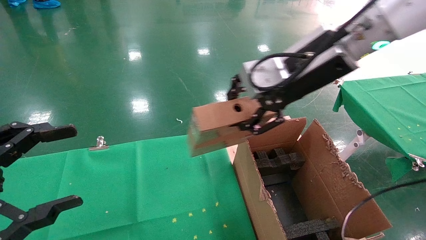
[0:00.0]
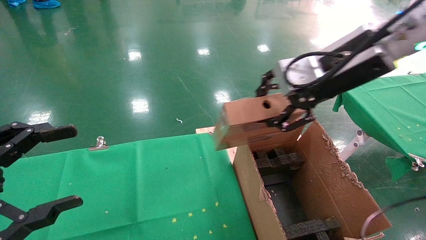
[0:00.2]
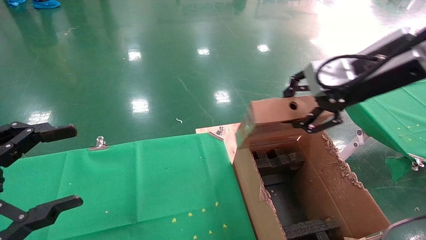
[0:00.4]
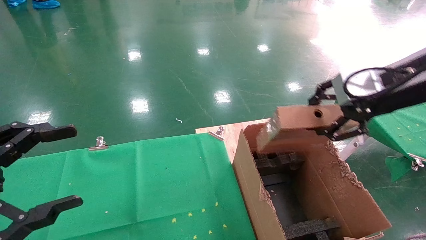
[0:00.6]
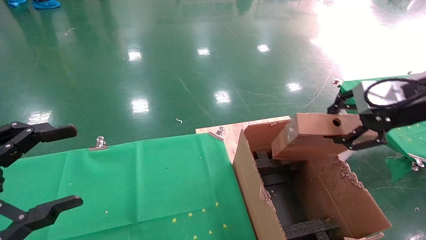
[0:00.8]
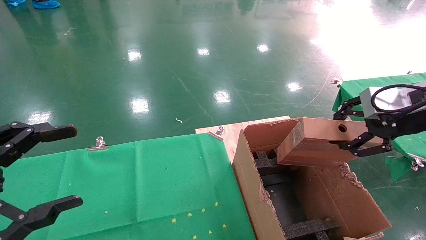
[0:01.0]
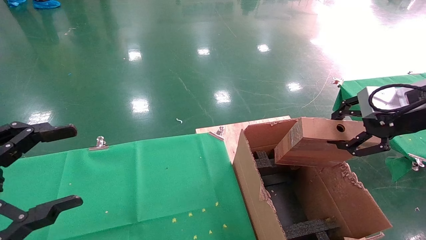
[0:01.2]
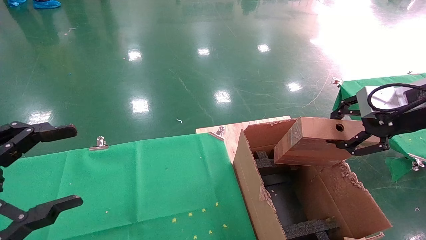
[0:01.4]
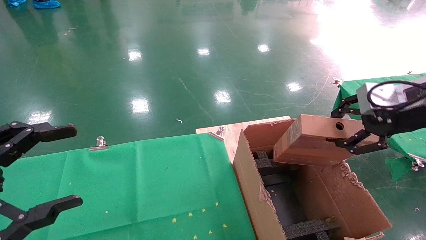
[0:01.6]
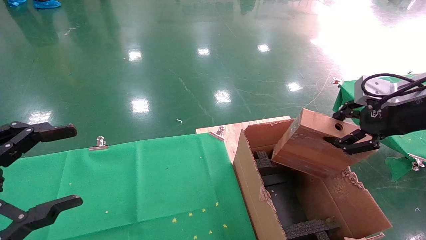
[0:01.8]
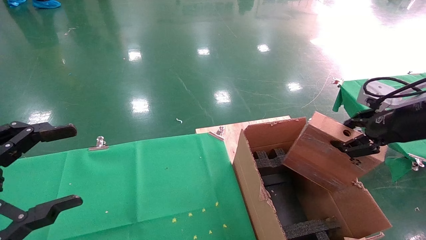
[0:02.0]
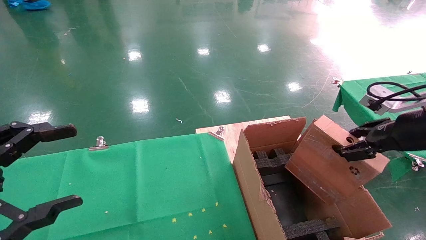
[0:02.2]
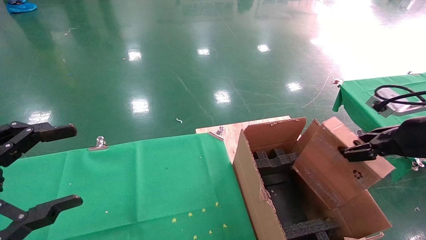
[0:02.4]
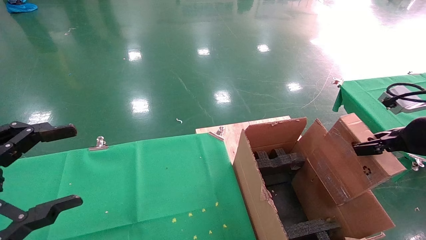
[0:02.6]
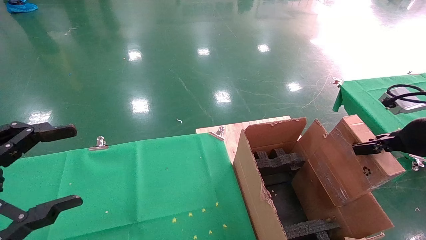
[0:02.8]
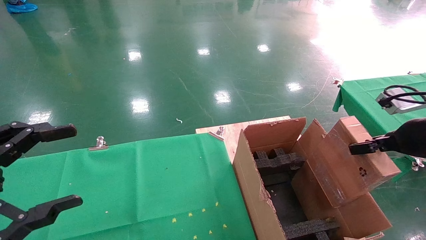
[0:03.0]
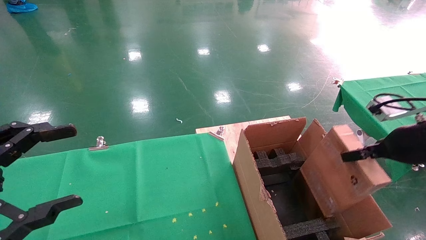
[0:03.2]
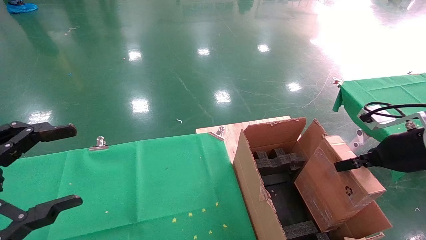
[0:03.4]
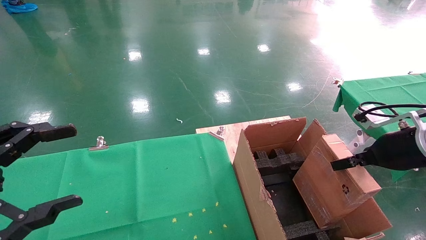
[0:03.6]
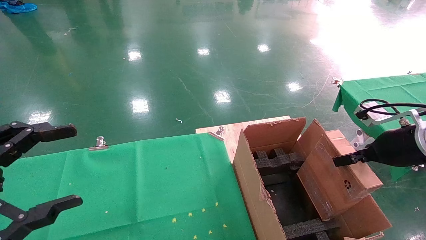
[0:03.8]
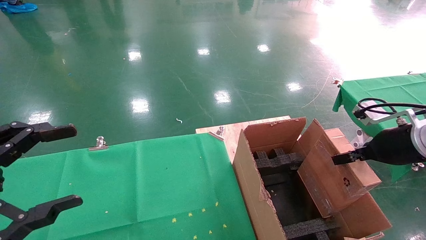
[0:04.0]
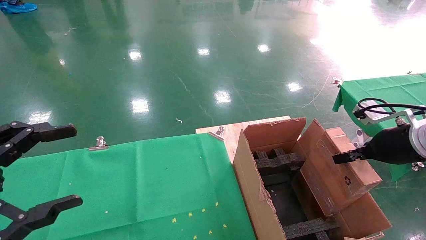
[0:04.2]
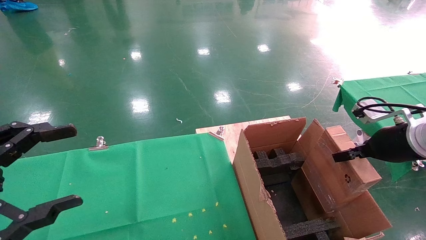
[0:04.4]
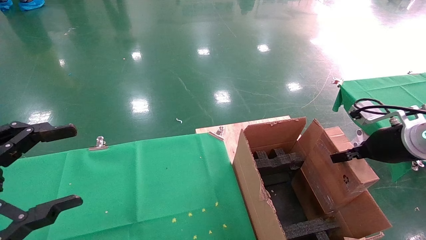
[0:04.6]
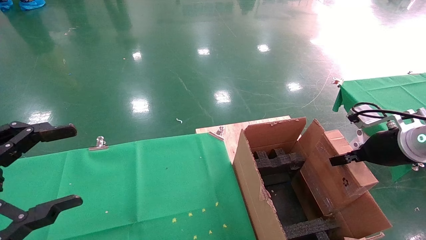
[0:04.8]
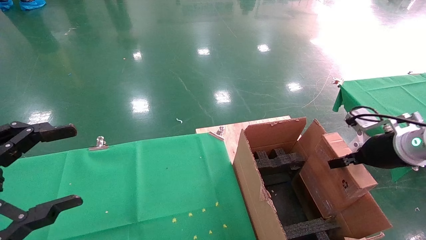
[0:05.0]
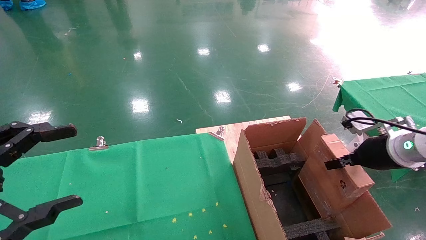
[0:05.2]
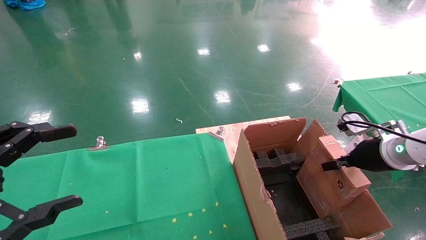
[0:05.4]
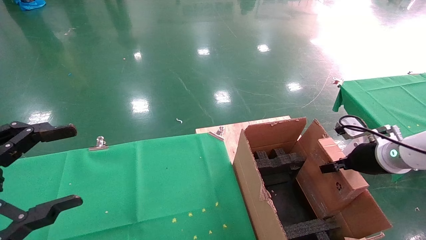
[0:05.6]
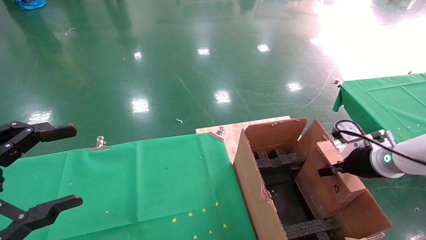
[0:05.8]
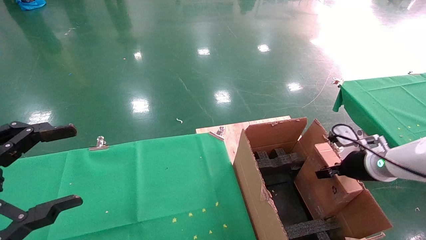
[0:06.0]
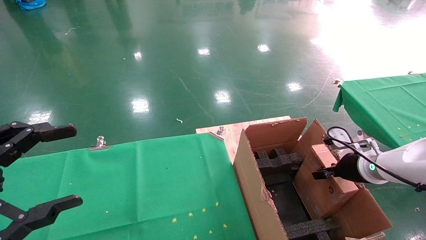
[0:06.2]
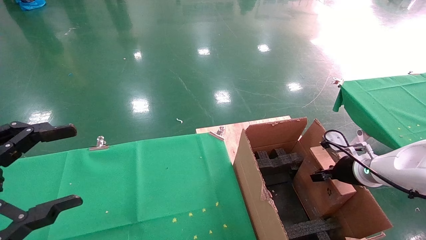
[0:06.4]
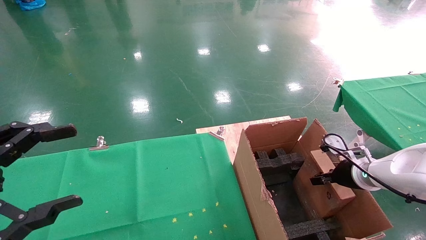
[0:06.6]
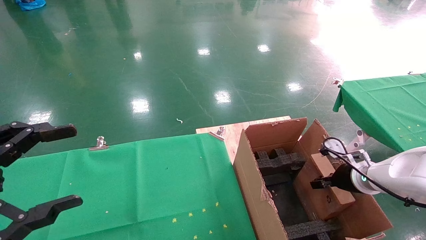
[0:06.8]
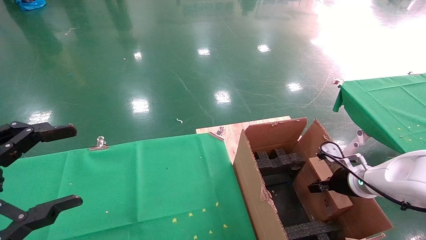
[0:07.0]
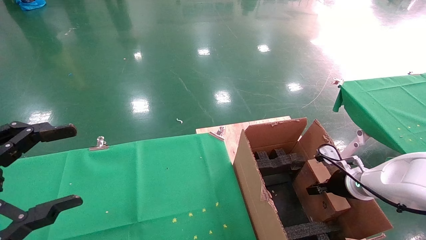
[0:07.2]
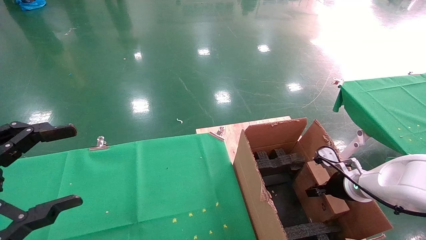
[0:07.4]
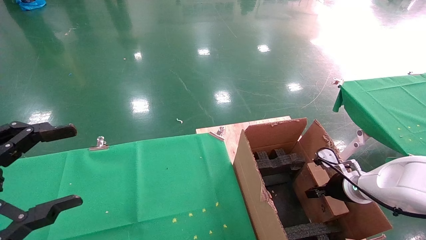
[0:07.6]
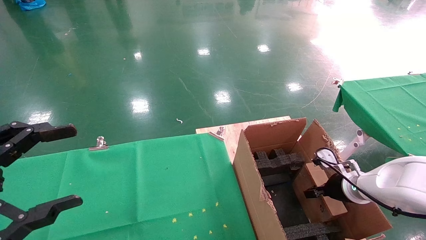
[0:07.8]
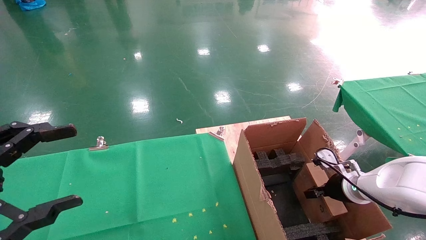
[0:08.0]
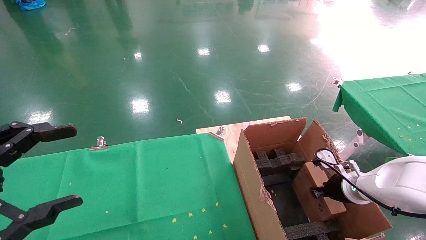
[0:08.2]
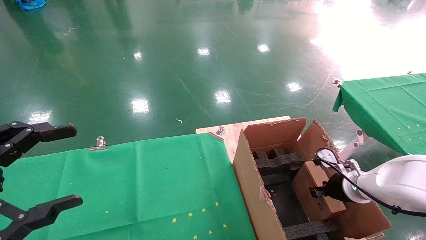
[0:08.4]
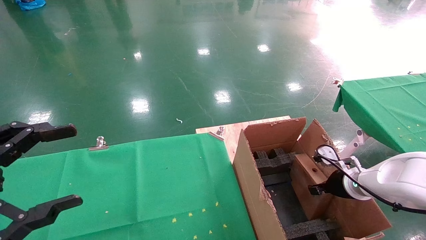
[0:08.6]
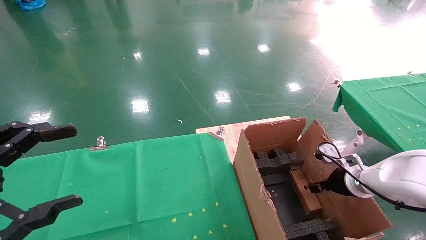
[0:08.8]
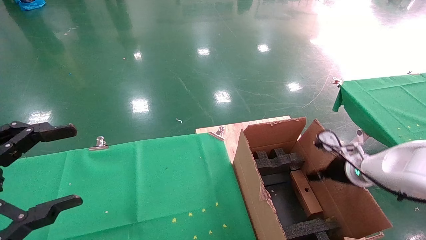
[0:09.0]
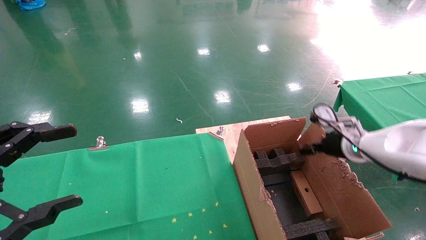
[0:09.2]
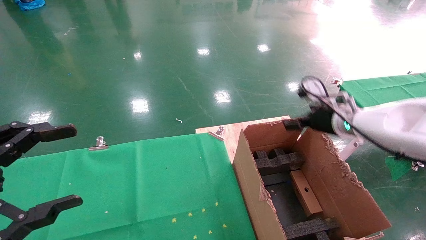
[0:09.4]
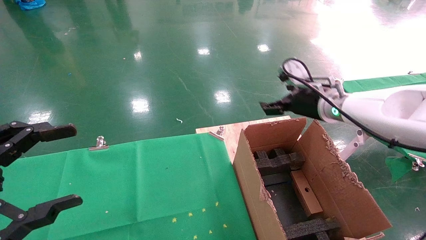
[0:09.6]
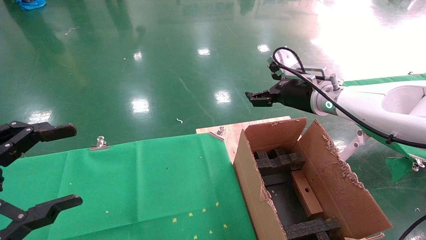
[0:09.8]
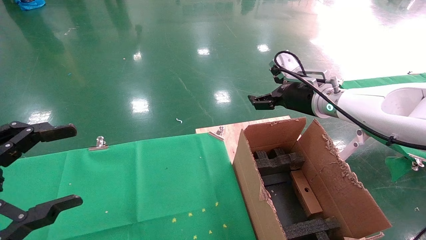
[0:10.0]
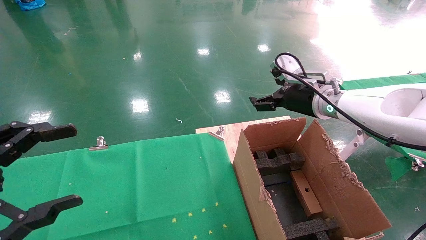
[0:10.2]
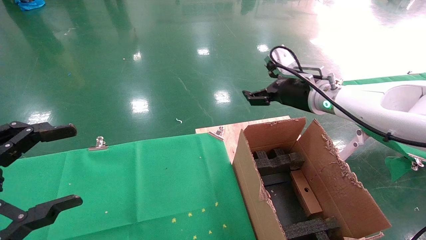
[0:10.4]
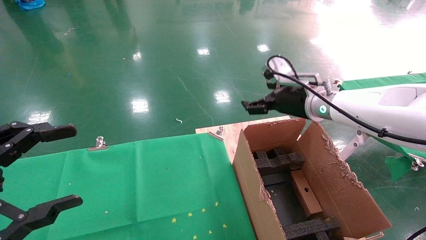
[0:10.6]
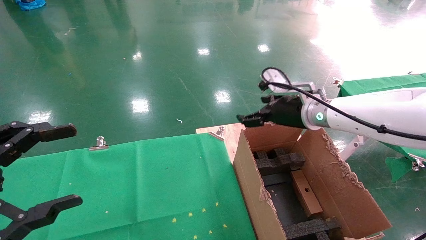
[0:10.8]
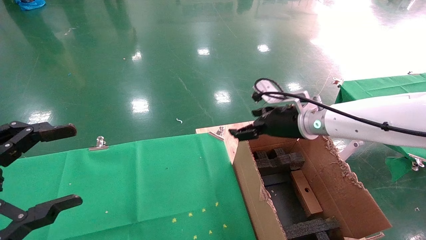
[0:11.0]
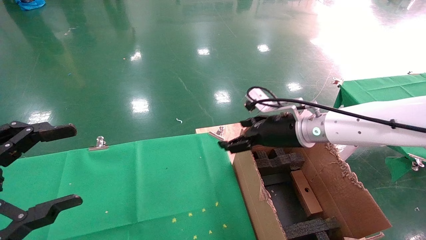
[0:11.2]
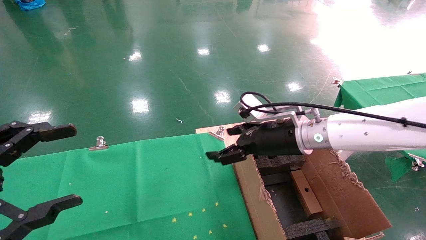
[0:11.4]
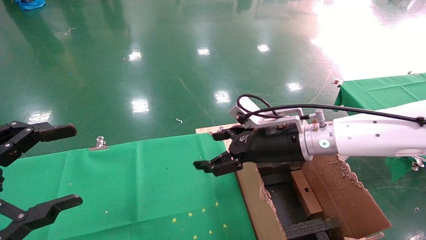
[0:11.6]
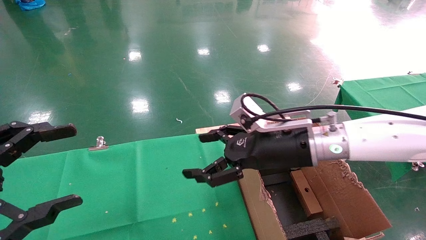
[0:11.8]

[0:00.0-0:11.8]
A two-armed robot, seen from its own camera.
Task of the whole recording: using a robotic arm to pick up a cardboard box and palace it the carton.
Step, 0:00.0 to 0:08.6: Place the mouse and the power cord paper box into the container.
0:00.0 to 0:01.4: The right gripper heads to the right, covering about 20 cm.
0:01.4 to 0:03.0: The right gripper is displaced downward by approximately 10 cm.
0:03.0 to 0:04.4: There are only small adjustments of the grippers.
0:04.4 to 0:06.0: The right gripper shifts approximately 10 cm downward and forward.
0:06.0 to 0:07.4: The right gripper moves downward, about 10 cm.
0:07.4 to 0:08.8: The right gripper opens its fingers.
0:08.8 to 0:10.4: The right gripper goes roughly 20 cm upward and to the left, and opens.
0:10.4 to 0:11.8: The right gripper is displaced backward and to the left by some 10 cm.

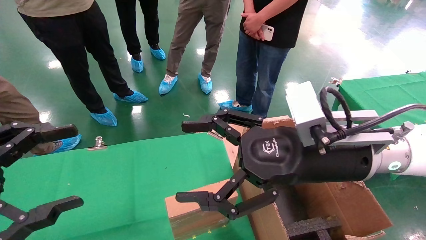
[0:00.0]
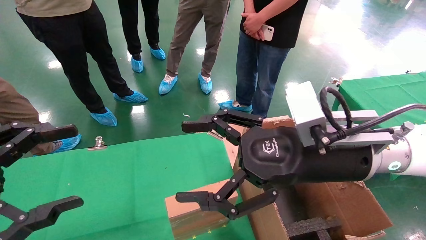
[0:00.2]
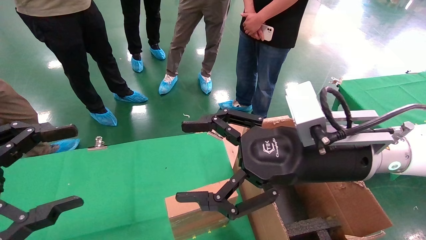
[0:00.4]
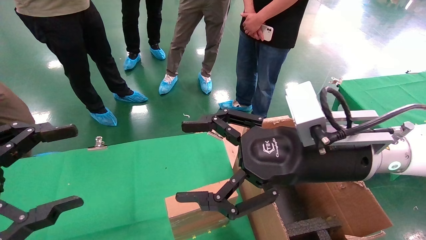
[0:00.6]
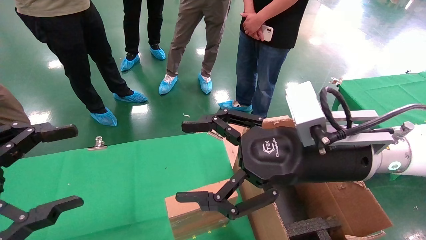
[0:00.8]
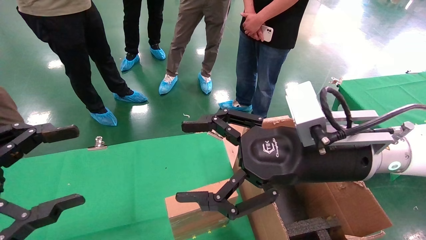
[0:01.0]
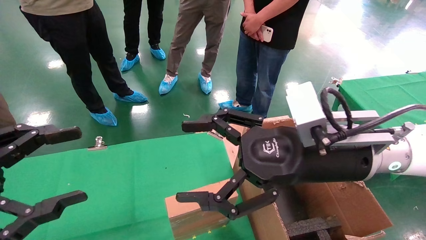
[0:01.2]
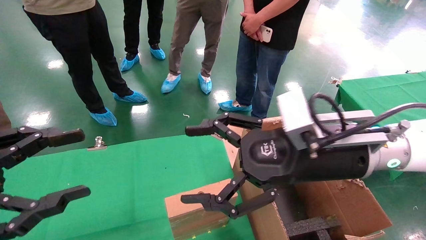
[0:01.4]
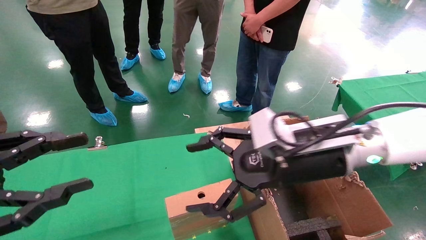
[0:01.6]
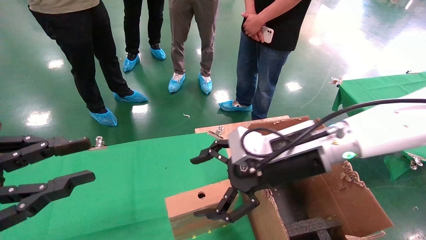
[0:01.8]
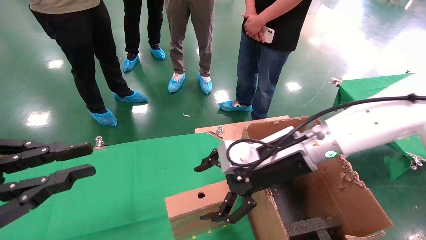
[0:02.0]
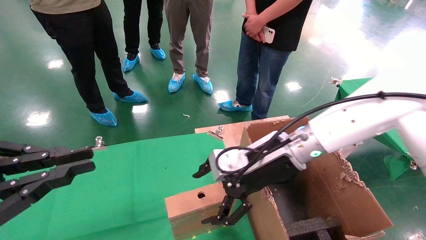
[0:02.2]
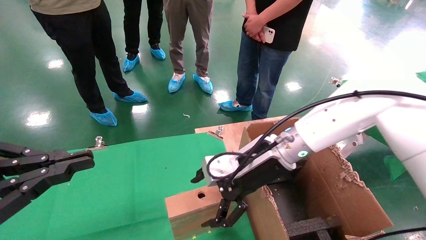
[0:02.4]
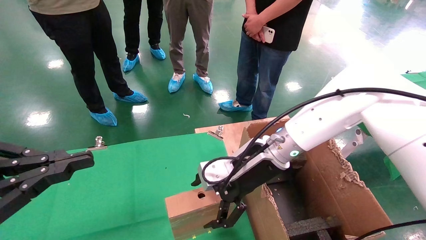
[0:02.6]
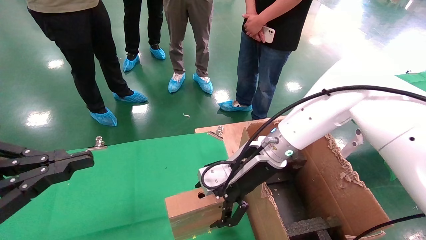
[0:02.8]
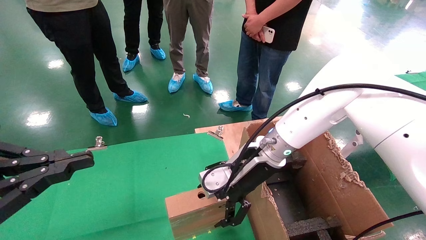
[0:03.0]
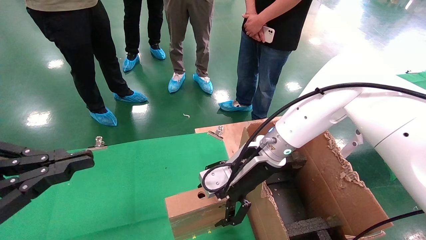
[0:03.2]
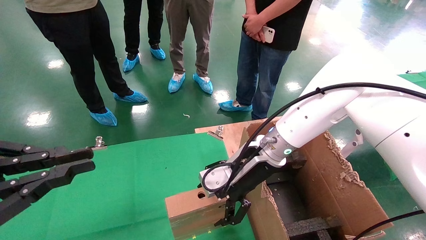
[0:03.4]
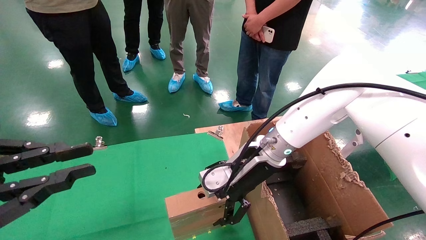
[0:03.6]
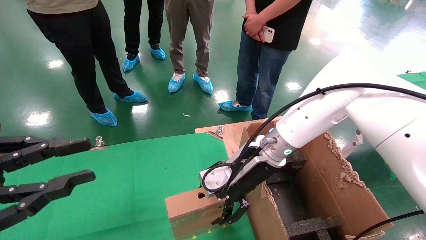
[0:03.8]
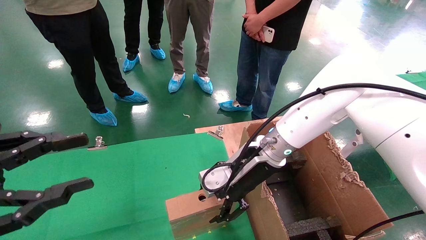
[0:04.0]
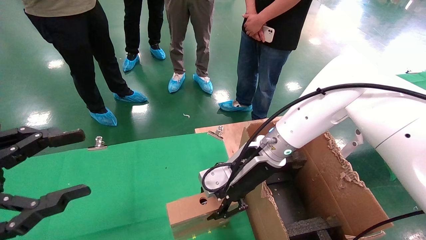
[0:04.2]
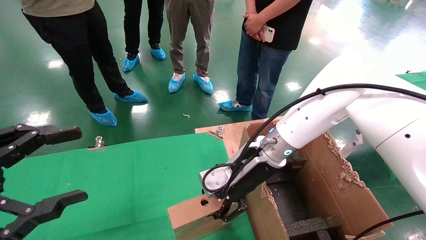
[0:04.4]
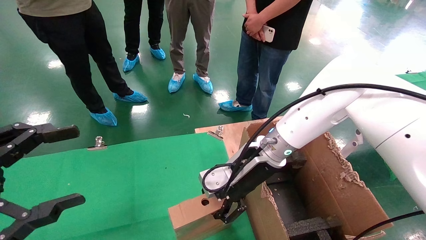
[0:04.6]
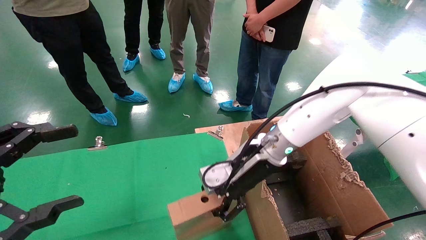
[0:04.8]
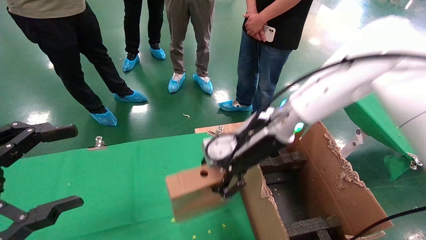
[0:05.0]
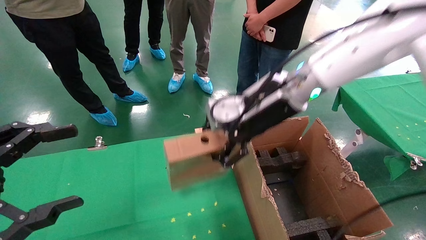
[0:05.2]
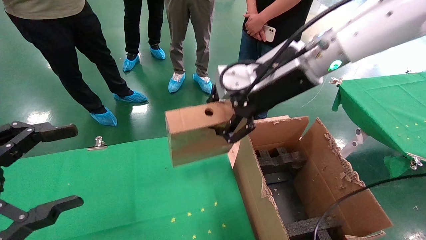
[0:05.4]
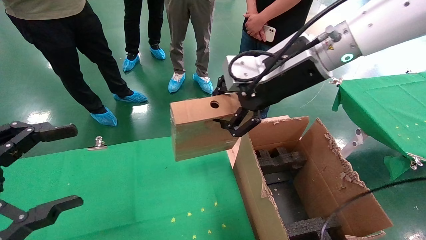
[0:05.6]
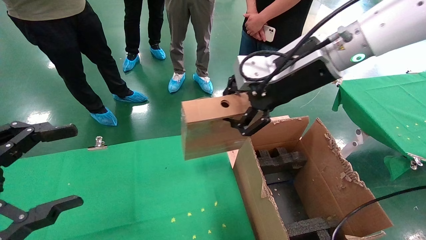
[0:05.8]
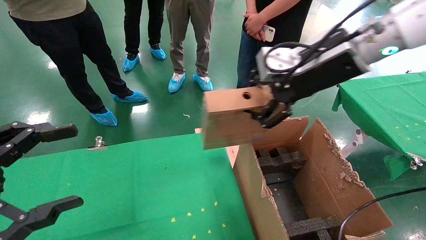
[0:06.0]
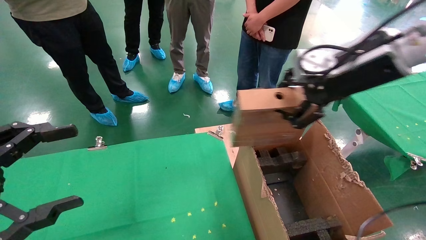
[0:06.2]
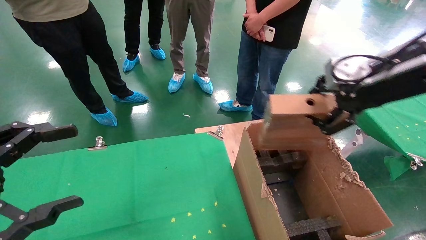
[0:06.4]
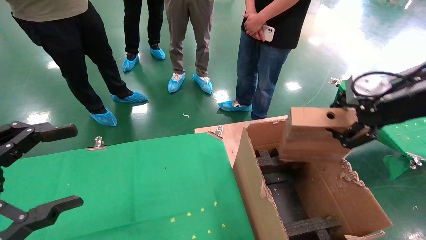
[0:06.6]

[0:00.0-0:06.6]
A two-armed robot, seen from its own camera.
Task of the whole recording: using a robotic arm to pick up a cardboard box and palace it the carton.
Step, 0:01.2 to 0:04.4: Pick up the mouse and the power cord paper box.
0:00.0 to 0:01.6: The left gripper closes up.
0:01.6 to 0:03.2: The left gripper closes its fingers; the right gripper goes roughly 10 cm forward.
0:03.2 to 0:05.0: The left gripper opens up, while the right gripper moves upward, about 5 cm, and closes up.
0:05.0 to 0:06.6: The right gripper shifts about 25 cm to the right and backward.
